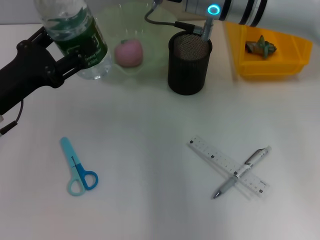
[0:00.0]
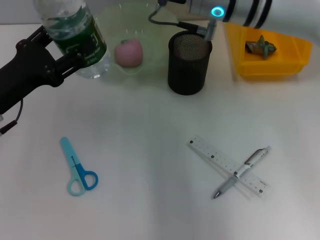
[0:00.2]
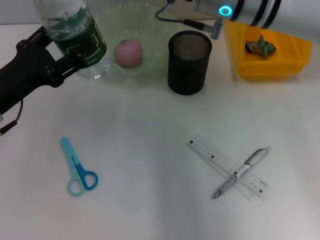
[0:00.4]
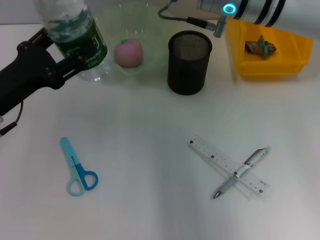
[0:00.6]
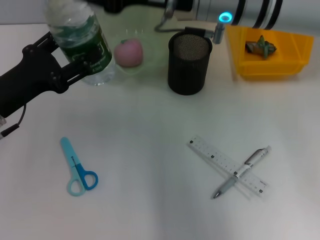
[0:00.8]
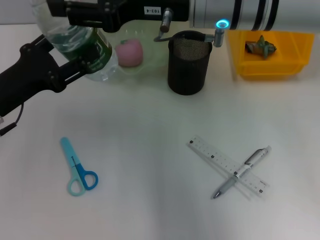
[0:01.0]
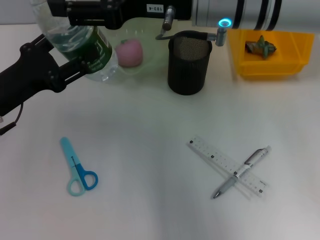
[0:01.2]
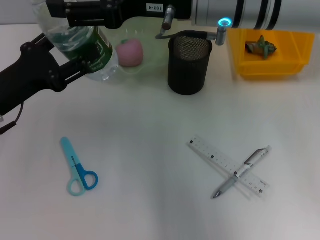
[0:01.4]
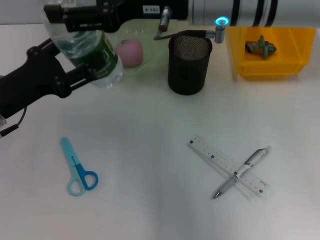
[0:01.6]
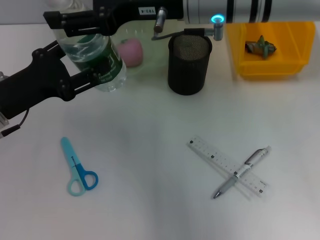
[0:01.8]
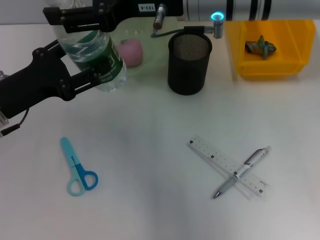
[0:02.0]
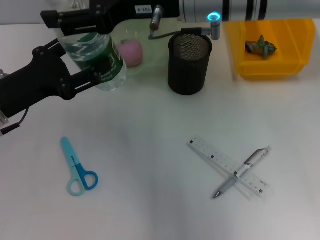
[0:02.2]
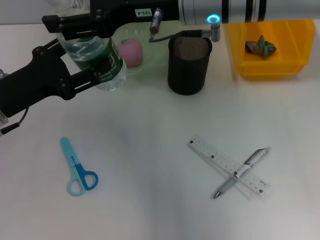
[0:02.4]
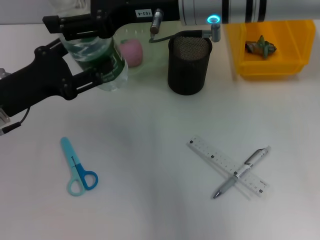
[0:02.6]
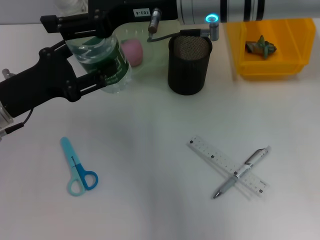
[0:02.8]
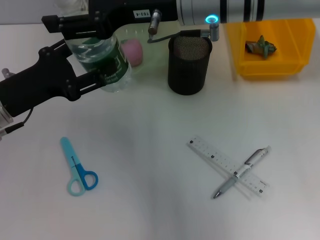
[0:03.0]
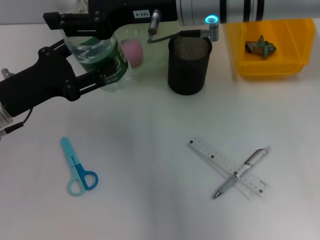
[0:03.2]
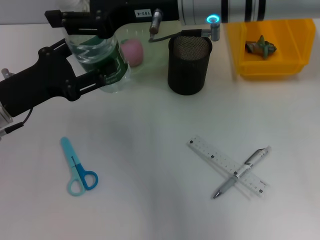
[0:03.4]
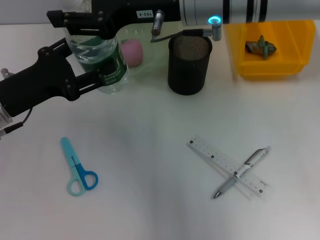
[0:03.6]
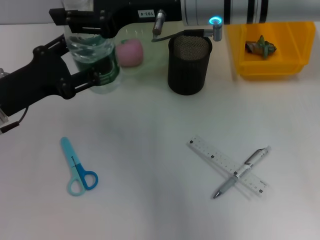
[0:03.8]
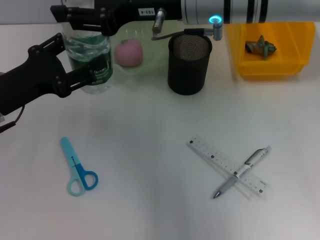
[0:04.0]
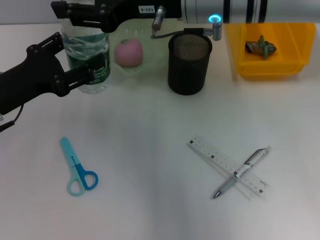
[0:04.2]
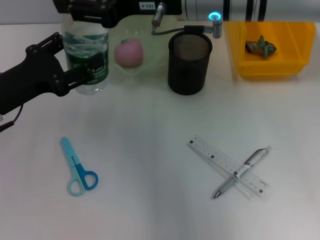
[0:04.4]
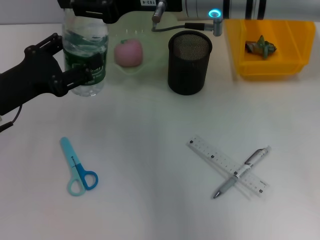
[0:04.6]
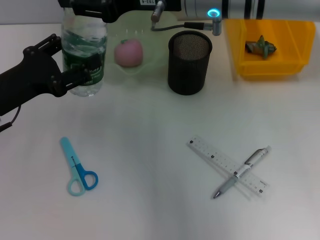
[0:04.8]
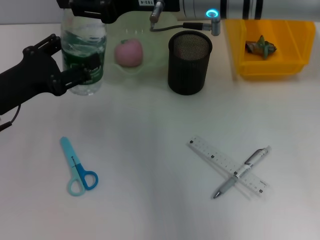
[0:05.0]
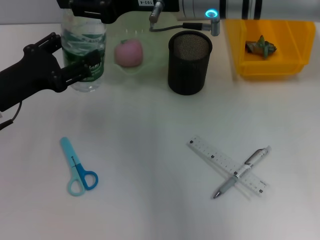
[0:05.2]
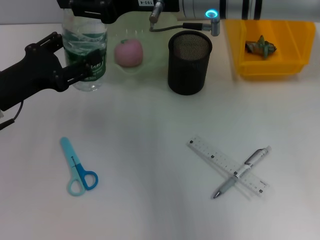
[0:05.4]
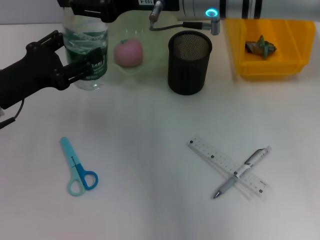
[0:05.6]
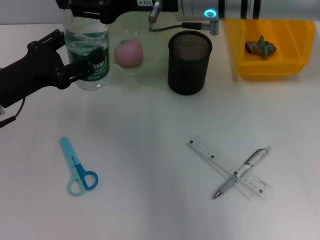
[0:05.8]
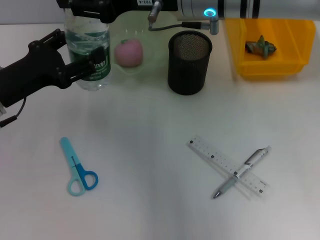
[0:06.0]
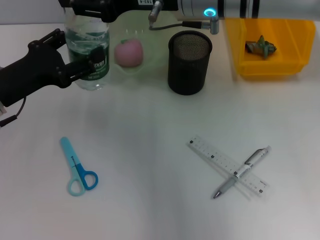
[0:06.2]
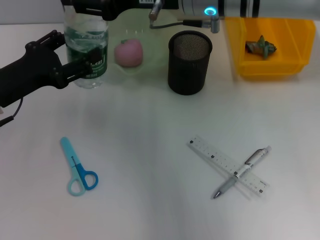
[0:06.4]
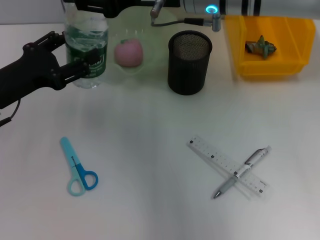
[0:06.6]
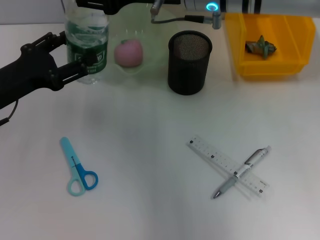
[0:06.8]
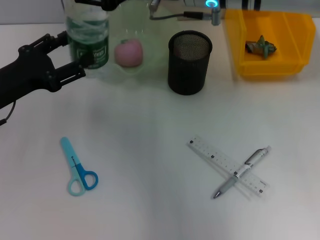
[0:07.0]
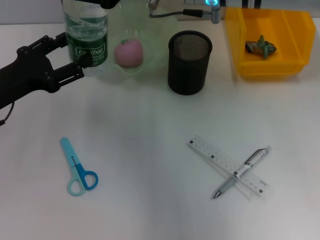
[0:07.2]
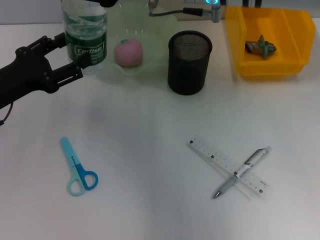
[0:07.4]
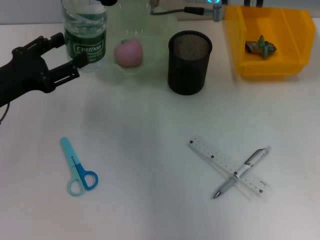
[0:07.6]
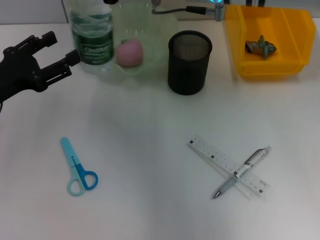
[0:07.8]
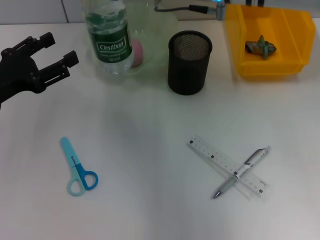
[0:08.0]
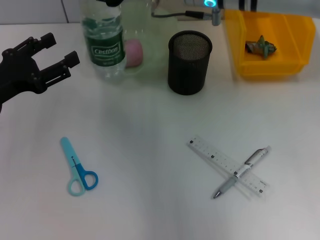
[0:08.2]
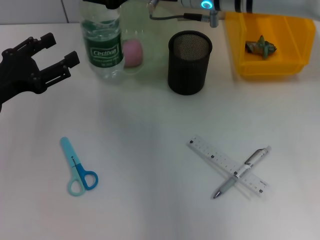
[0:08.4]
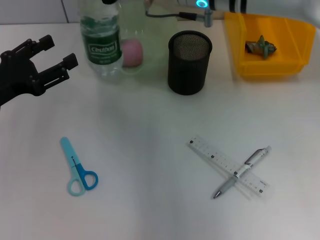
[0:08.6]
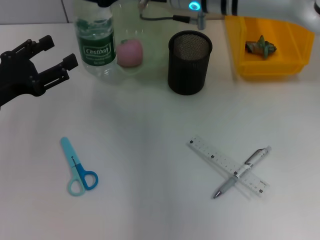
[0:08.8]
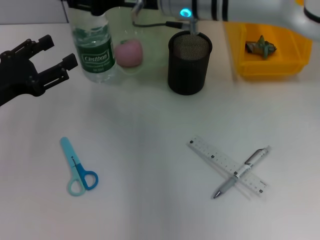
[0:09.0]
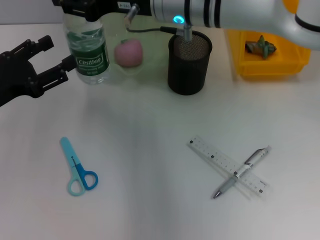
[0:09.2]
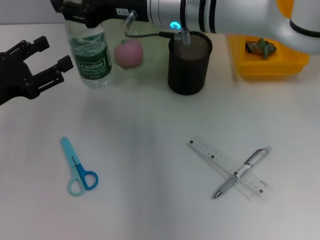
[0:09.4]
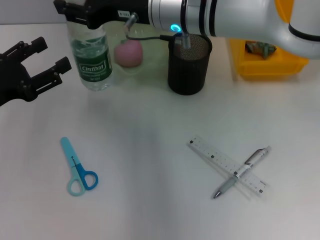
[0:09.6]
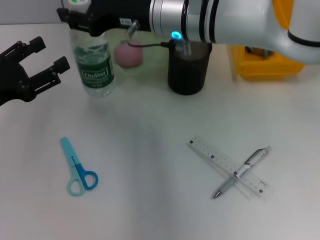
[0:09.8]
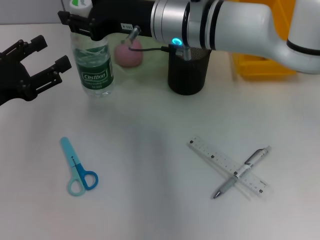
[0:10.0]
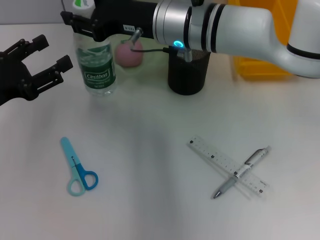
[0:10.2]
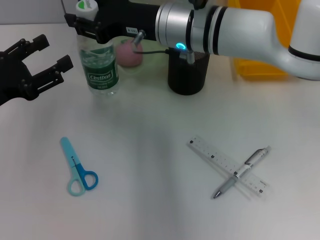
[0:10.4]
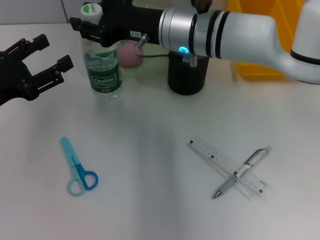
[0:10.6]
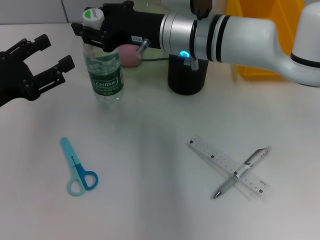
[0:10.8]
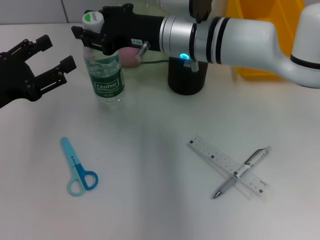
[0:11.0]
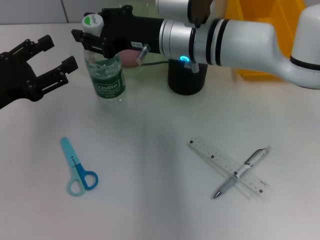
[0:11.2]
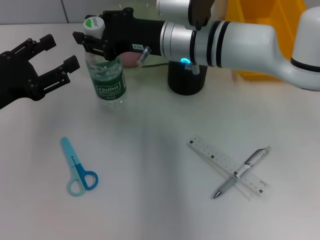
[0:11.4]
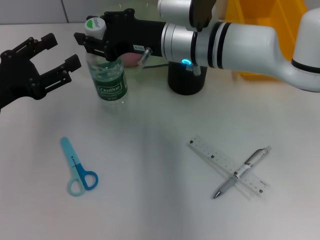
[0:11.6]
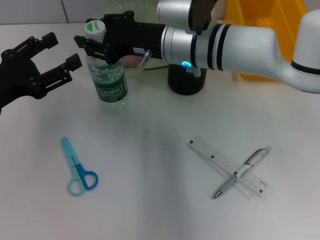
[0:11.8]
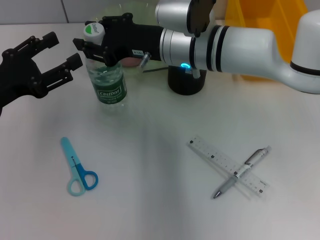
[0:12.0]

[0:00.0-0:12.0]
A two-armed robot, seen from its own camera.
Step, 0:00.0 to 0:07.6: Pass the water bottle from the left hand to the right hand.
0:00.0 to 0:01.6: The right gripper opens its fingers.
0:01.6 to 0:03.0: There are only small adjustments of the grippers.
0:03.0 to 0:04.4: The right gripper closes.
0:04.4 to 0:06.0: The two grippers keep their place.
0:06.0 to 0:07.6: There are only small adjustments of the grippers.
0:07.6 to 0:09.0: The right gripper moves some 5 cm.
0:09.0 to 0:10.4: The grippers stay close to where they were, moving slightly.
0:10.4 to 0:12.0: The grippers make only small movements.

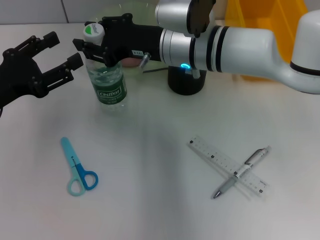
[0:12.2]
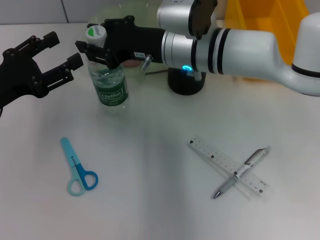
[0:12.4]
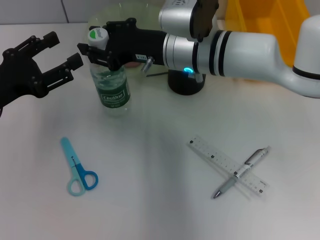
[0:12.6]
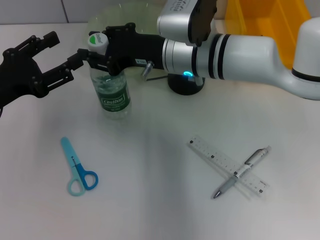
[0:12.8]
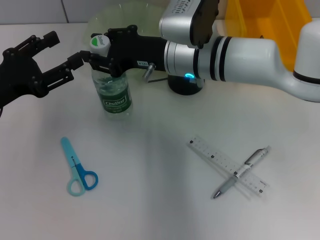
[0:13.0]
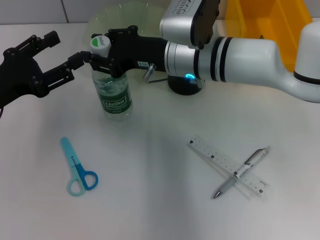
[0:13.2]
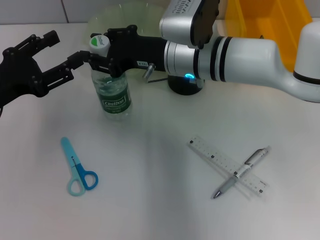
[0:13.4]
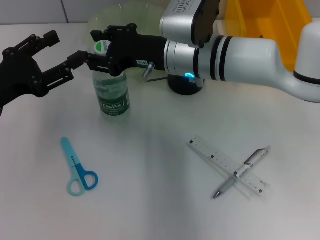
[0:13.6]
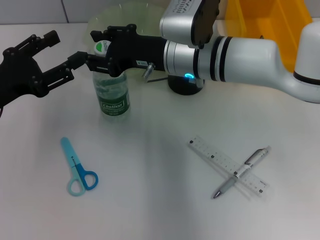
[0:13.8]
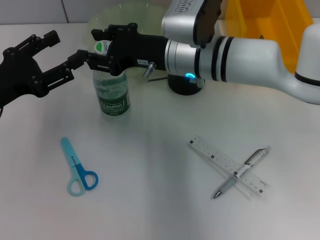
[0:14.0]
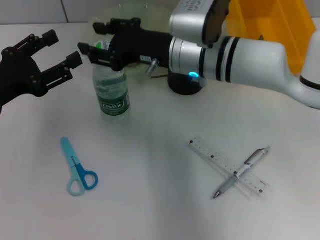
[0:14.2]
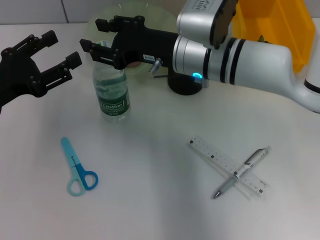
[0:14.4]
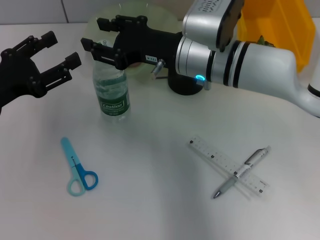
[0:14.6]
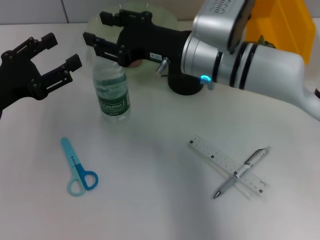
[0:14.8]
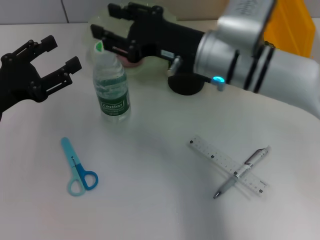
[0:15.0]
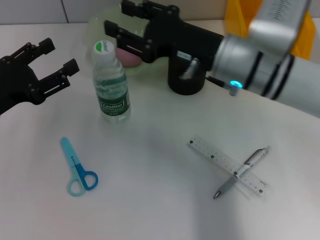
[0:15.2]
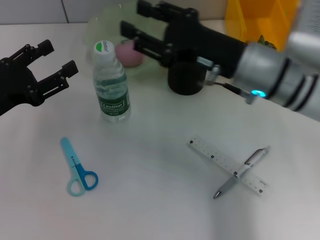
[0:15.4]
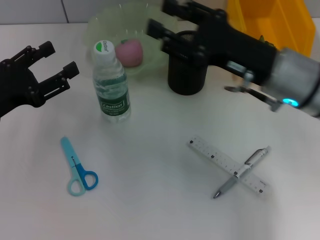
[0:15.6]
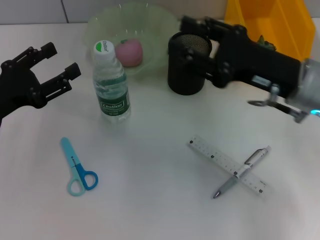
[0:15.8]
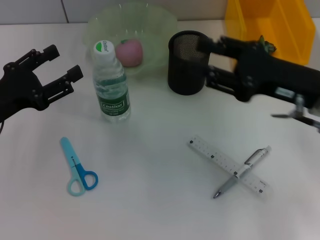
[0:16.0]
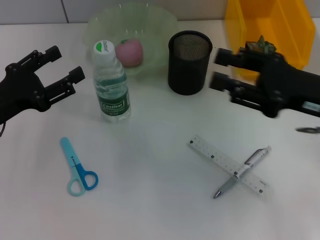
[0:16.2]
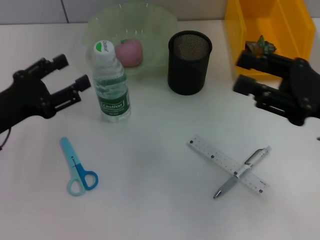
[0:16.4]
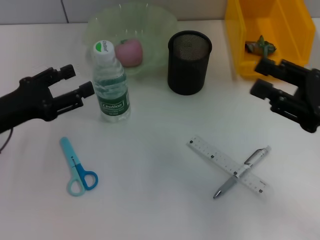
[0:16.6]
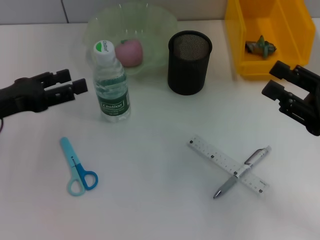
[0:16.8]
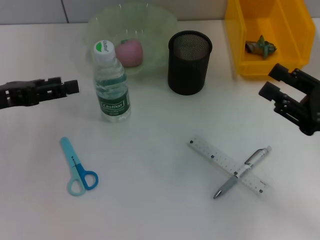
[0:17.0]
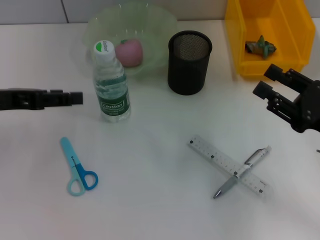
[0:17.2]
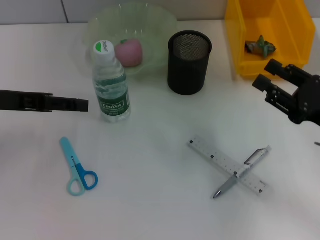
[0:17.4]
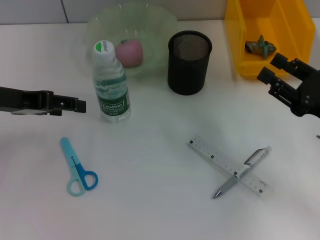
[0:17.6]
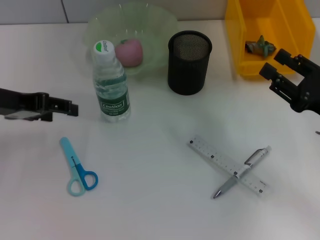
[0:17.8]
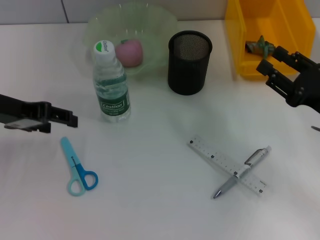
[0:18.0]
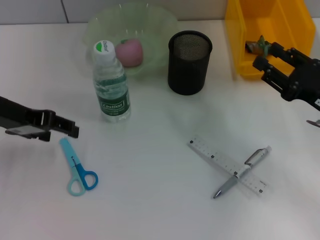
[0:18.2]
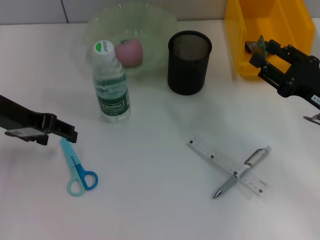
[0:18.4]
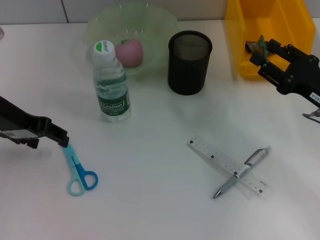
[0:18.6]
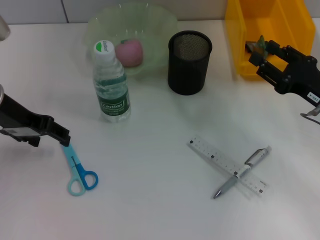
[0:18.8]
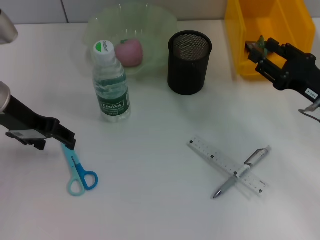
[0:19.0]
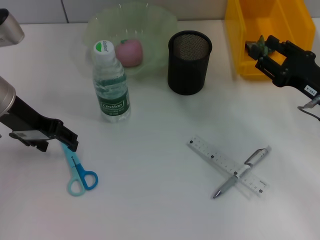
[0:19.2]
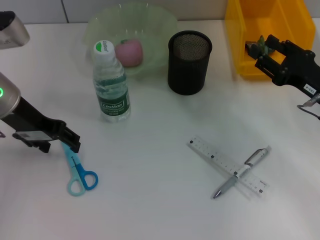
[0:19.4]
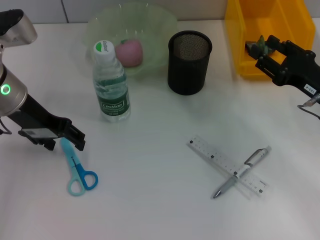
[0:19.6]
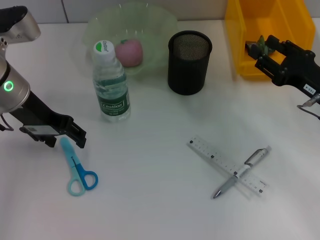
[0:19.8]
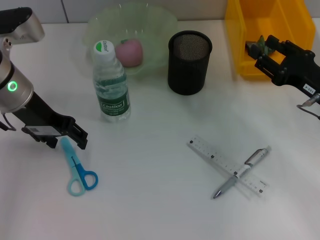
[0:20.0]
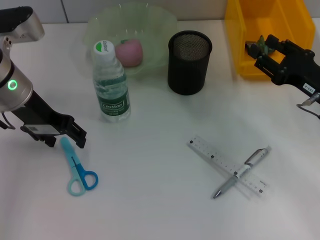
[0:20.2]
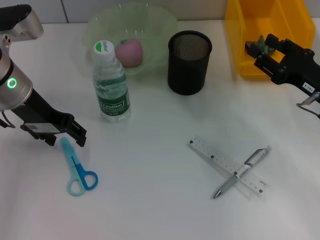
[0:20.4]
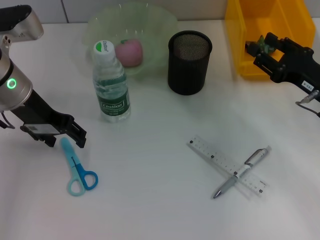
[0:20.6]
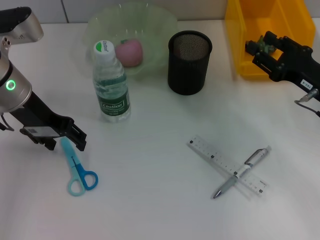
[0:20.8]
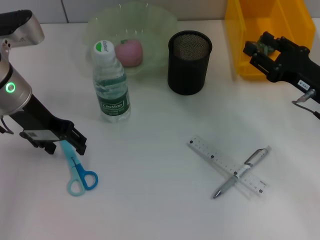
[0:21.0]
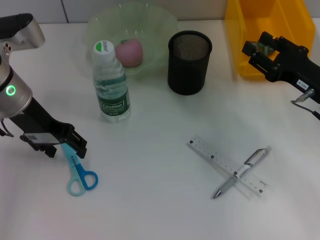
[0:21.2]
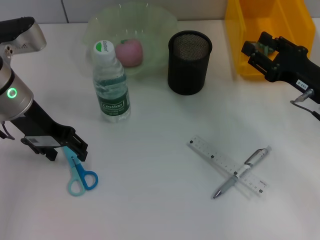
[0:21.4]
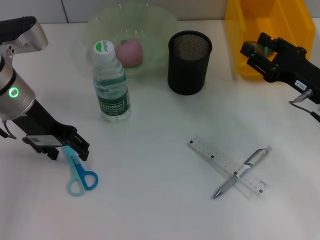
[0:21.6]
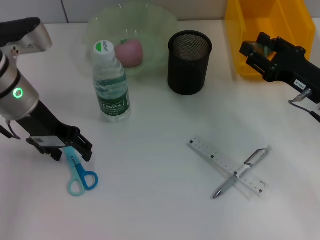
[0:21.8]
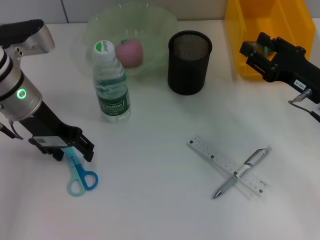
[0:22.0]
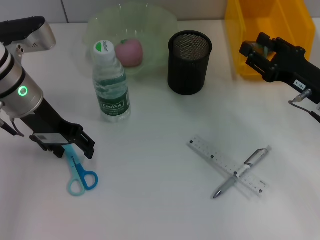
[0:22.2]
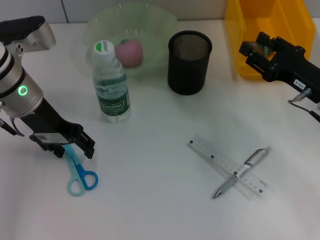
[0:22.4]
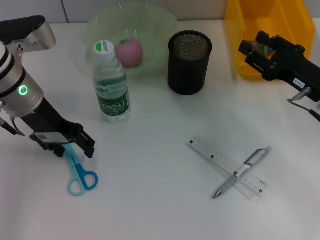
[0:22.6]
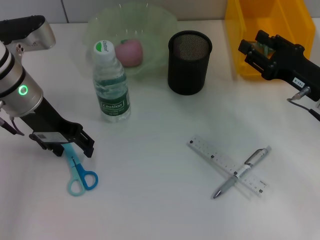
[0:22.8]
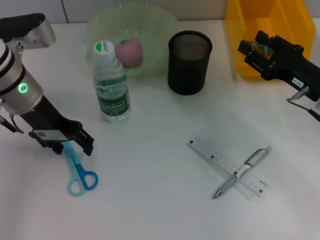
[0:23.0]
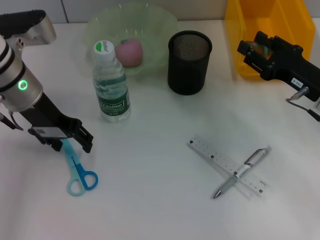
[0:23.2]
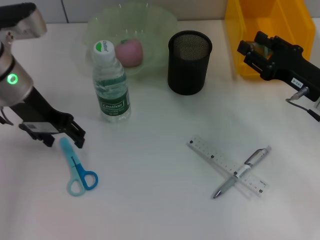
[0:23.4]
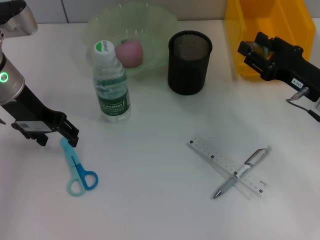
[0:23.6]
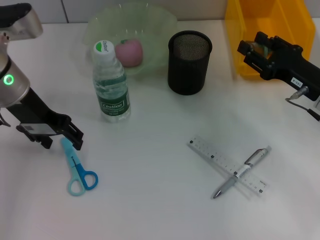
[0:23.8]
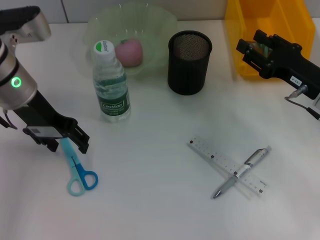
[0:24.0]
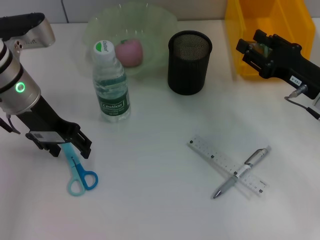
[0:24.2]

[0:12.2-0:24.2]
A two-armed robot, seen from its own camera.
Step, 0:12.2 to 0:14.4: Place the water bottle on the table with the right hand.
0:12.2 to 0:13.8: The grippers make only small movements.
0:13.8 to 0:15.2: The right gripper travels to the right by approximately 5 cm.
0:15.2 to 0:16.6: The right gripper goes roughly 20 cm to the right and backward.
0:16.6 to 0:18.2: The right gripper changes place by approximately 5 cm, while the left gripper travels upward by approximately 10 cm.
0:18.2 to 0:19.8: The left gripper moves about 5 cm.
0:19.8 to 0:21.2: Neither gripper changes place.
0:21.2 to 0:24.2: The grippers make only small movements.
